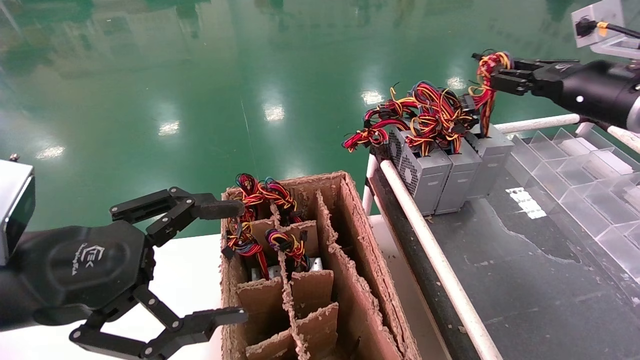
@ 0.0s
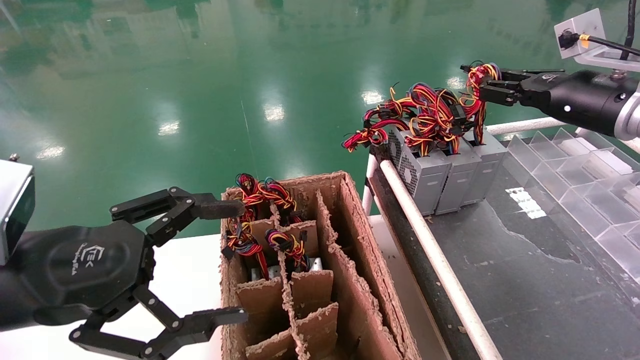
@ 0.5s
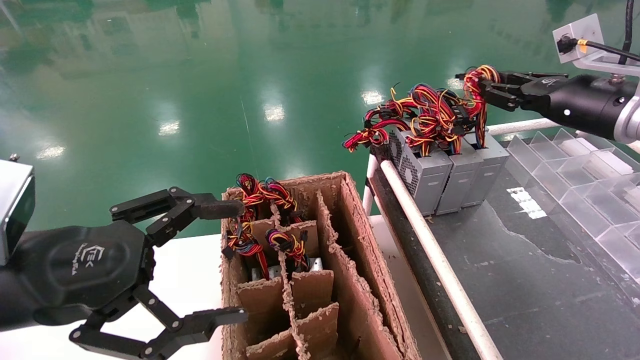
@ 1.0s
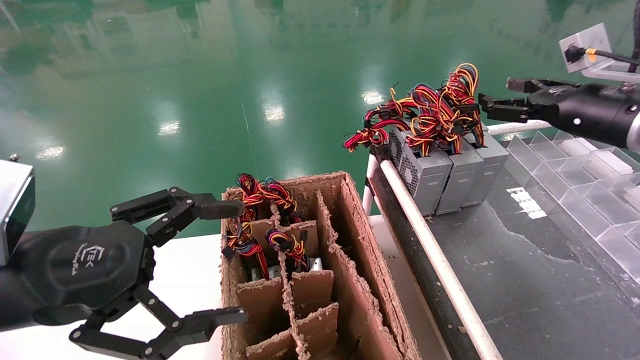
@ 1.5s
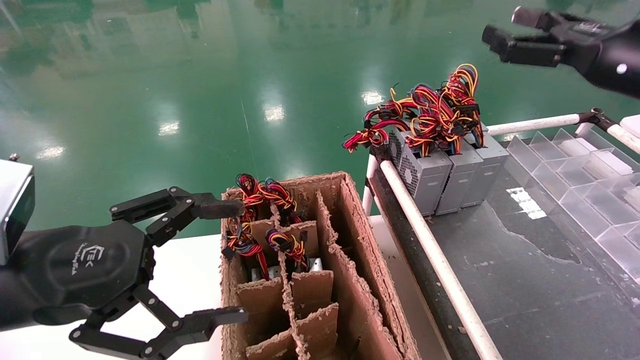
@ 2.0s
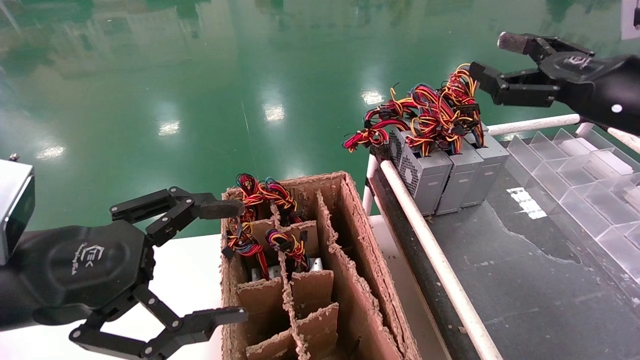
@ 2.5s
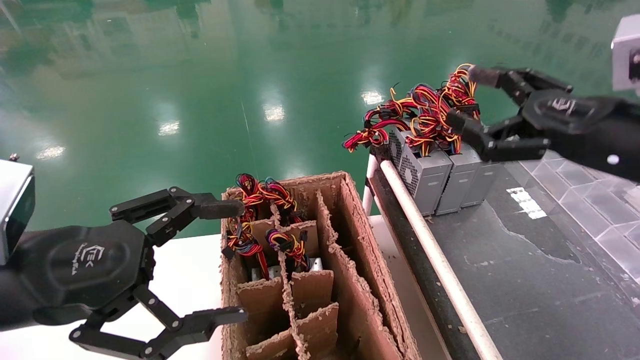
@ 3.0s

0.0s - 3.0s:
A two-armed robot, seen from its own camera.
0.0s - 1.5s: The right gripper opens.
1.5s - 3.0s: The right gripper moves backward and to the left, some 10 cm, and opens.

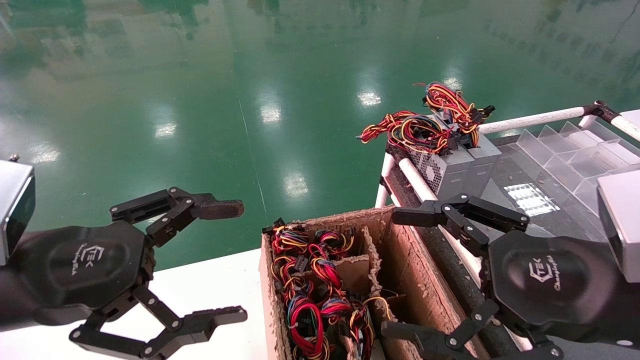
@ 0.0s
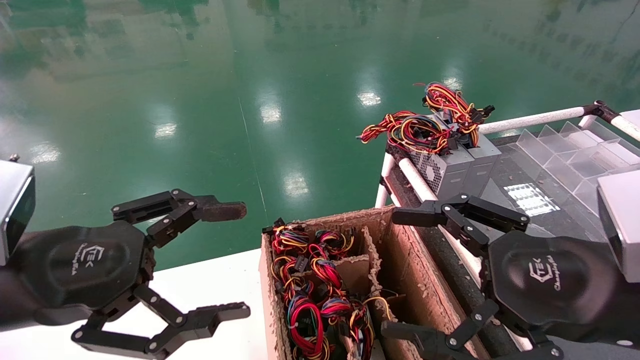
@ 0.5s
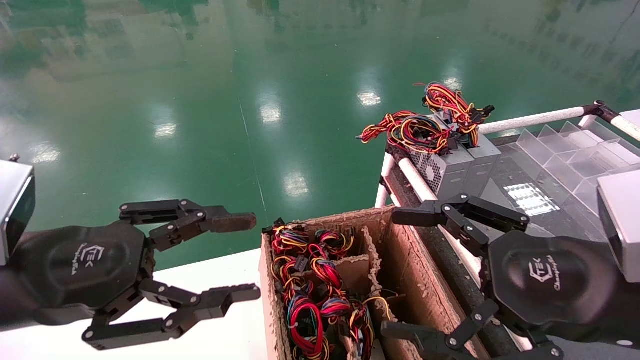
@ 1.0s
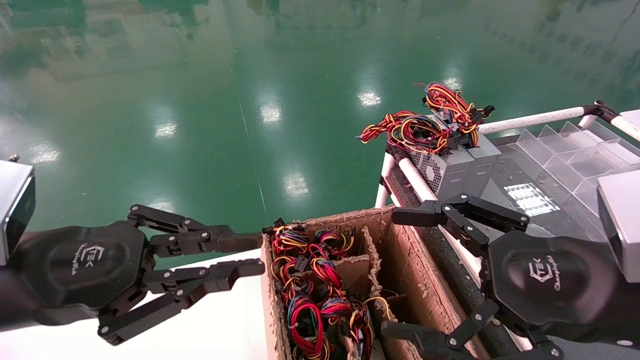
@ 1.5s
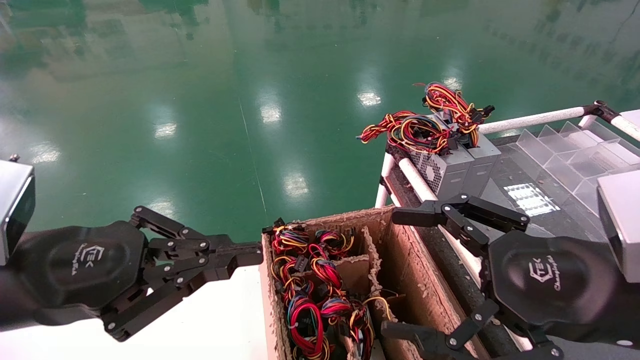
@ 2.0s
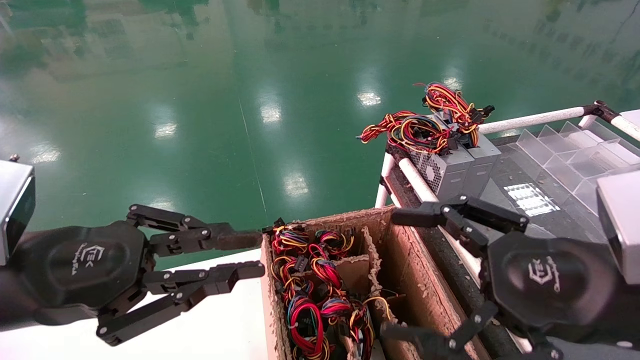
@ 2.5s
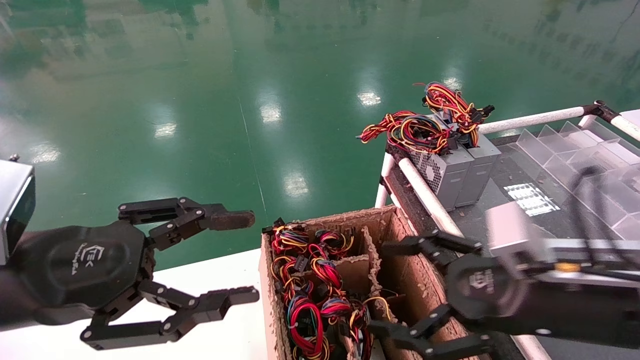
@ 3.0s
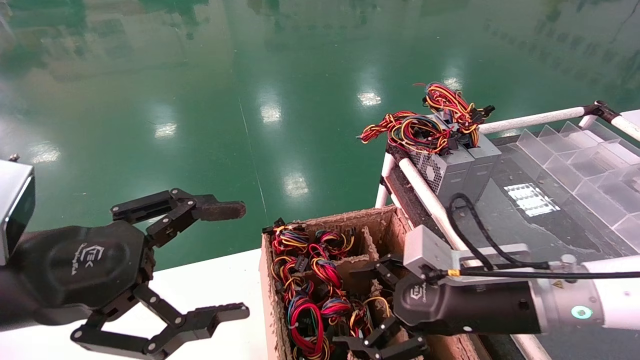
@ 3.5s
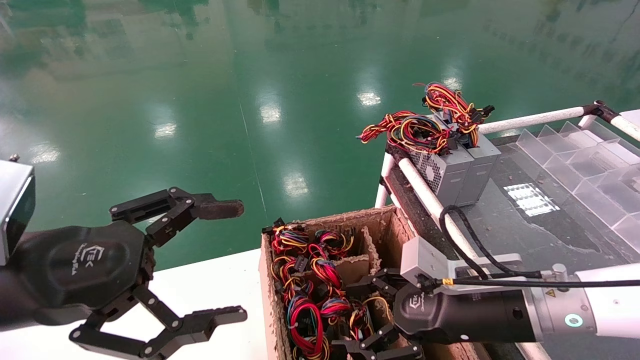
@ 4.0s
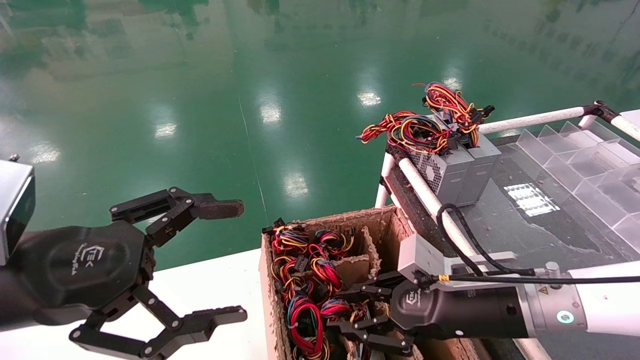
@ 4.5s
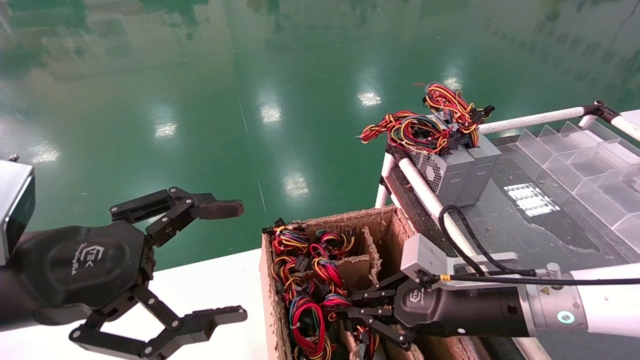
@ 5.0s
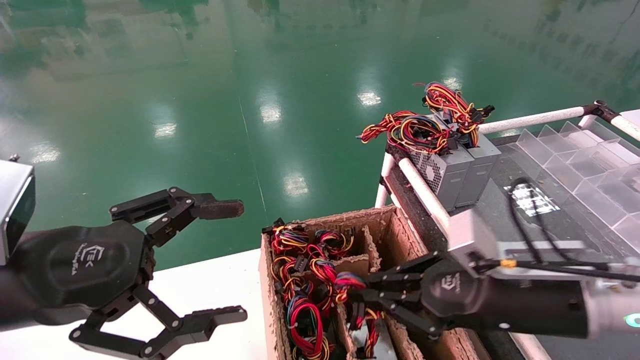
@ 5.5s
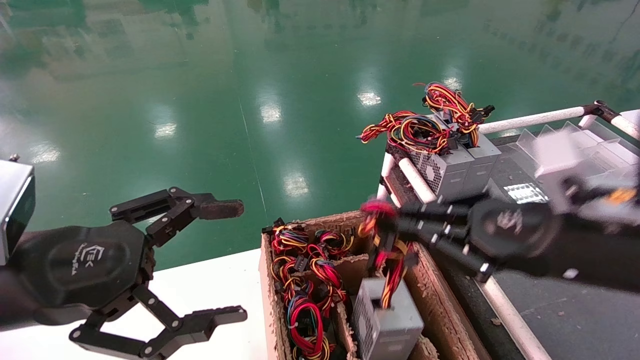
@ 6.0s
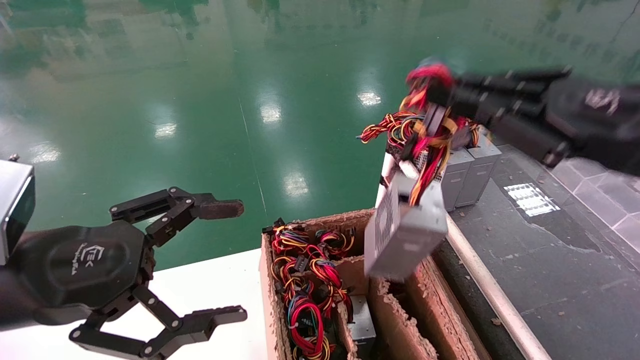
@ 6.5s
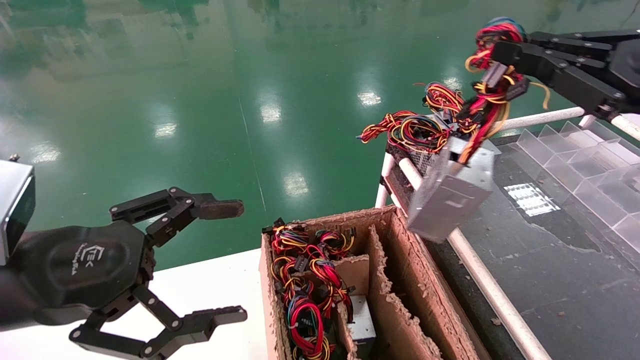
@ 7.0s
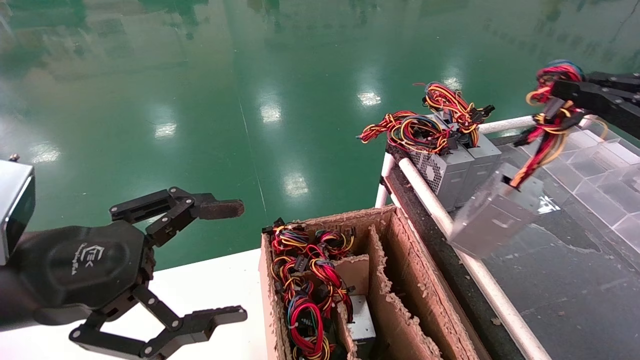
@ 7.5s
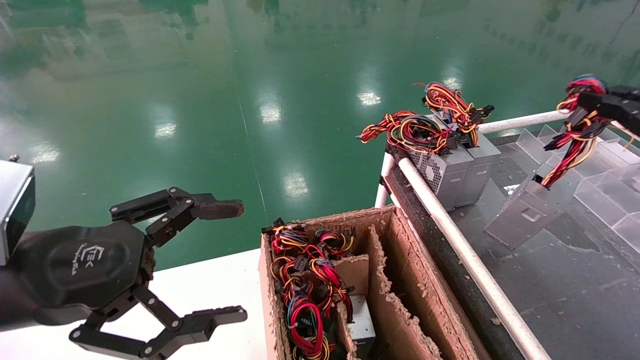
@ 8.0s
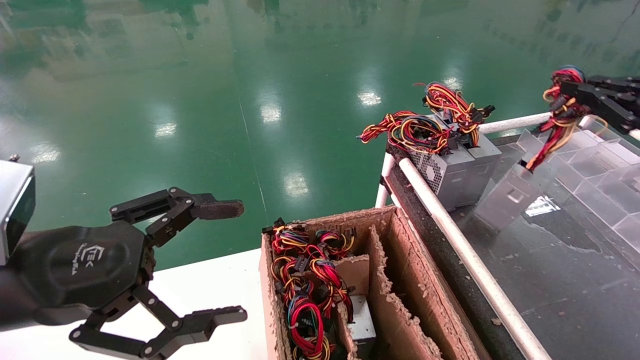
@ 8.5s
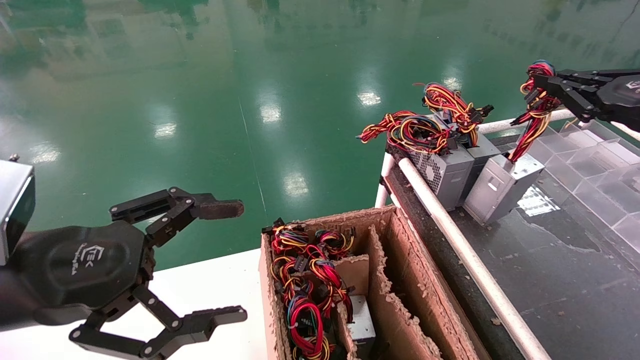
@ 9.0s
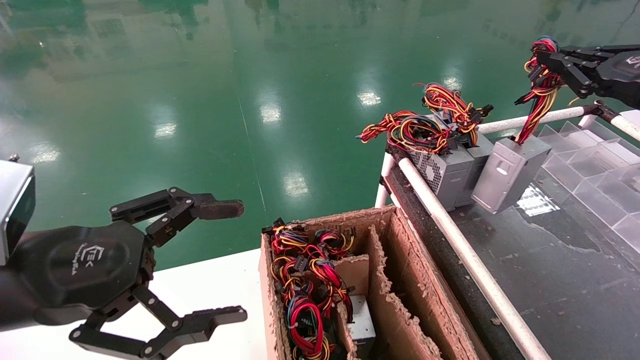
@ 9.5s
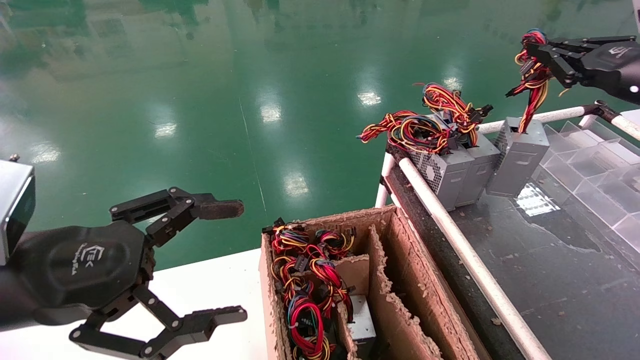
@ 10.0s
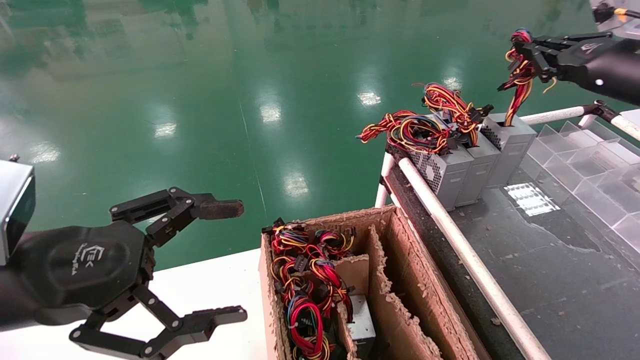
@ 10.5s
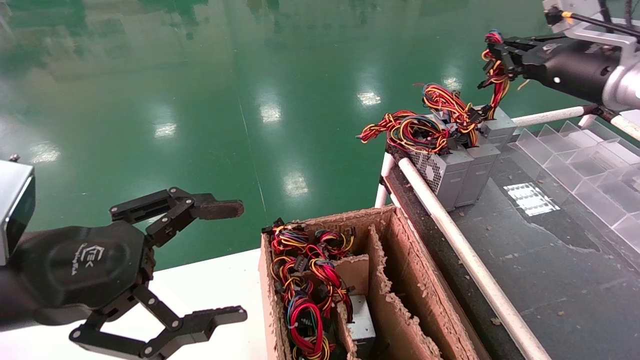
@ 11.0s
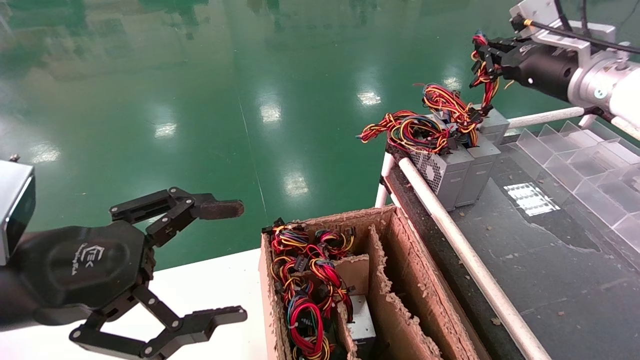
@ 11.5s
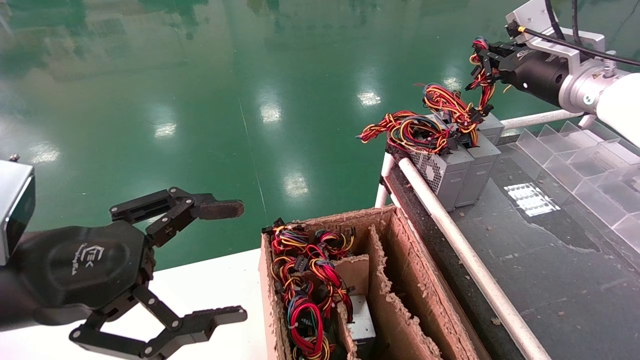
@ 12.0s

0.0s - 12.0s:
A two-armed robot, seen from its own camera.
Step, 2.0s - 5.0s: Grab and lift the power supply from the large box.
0.0s - 2.0s: The left gripper closes.
2.0s - 4.0s: The left gripper opens its fingers; the right gripper goes about 15 cm forward, downward and to the left.
4.0s - 6.0s: The right gripper shifts approximately 10 cm upward and to the right, and closes up.
6.0s - 8.0s: The right gripper shifts approximately 20 cm to the right.
8.0s - 10.0s: The right gripper moves forward, some 10 cm.
10.0s - 12.0s: The right gripper moves forward and to the left, some 15 cm.

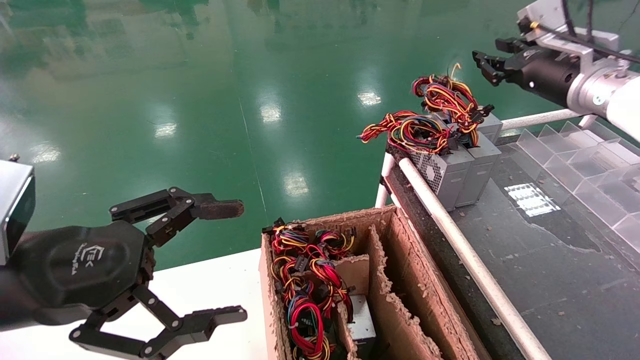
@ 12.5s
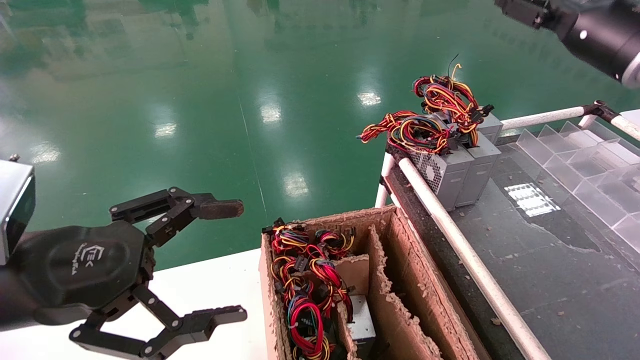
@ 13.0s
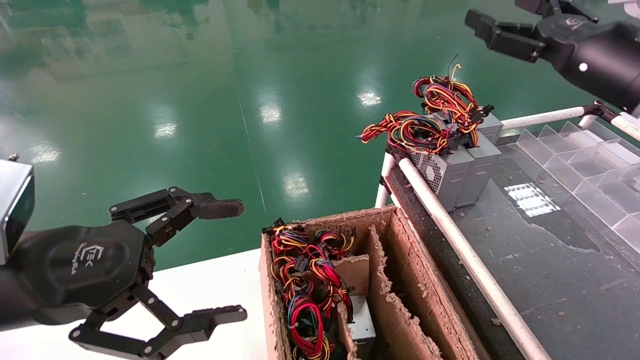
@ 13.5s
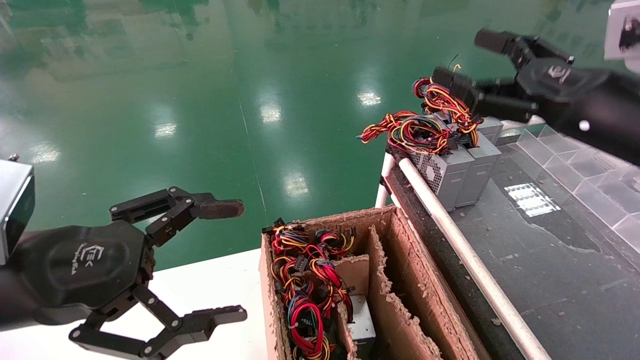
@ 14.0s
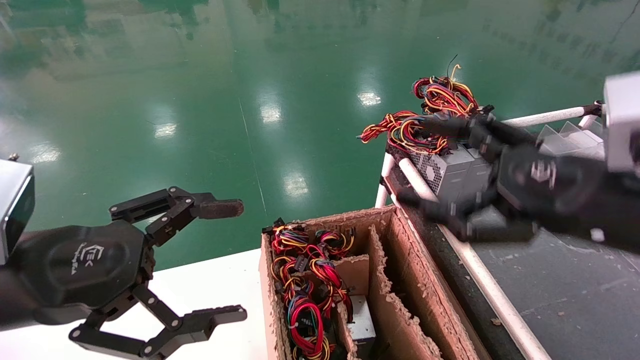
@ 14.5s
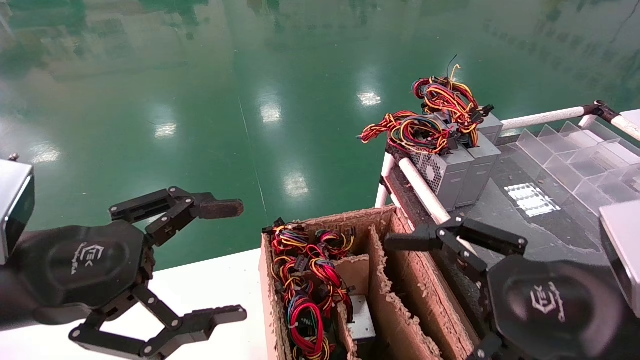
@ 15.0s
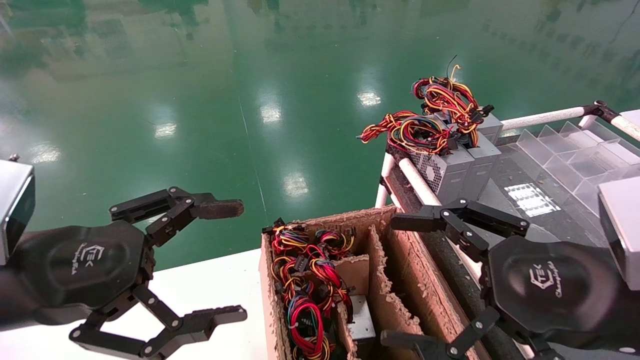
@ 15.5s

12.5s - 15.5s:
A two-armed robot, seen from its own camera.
12.5s - 14.0s: The right gripper travels backward by approximately 15 cm, and opens up.
14.0s - 15.5s: The right gripper is displaced backward, downward and to the left by about 15 cm.
